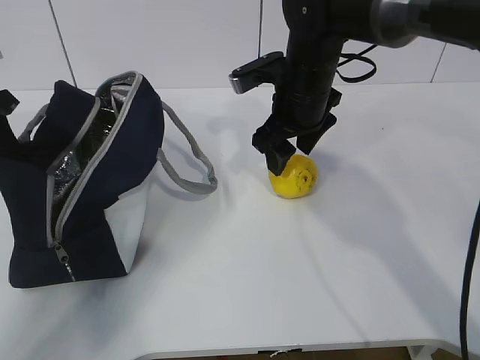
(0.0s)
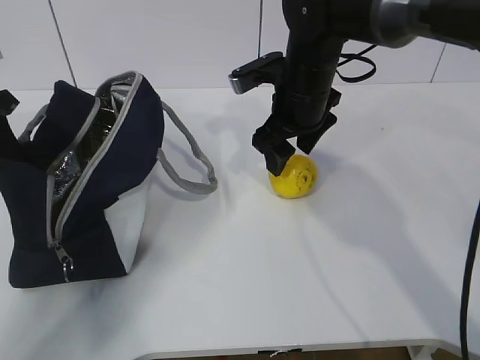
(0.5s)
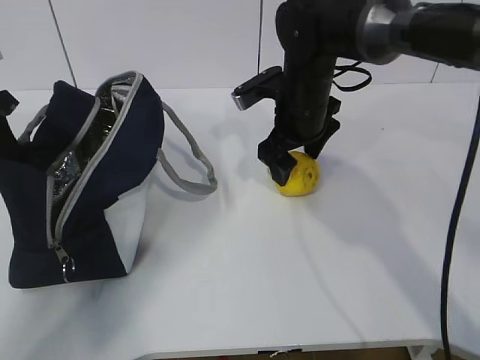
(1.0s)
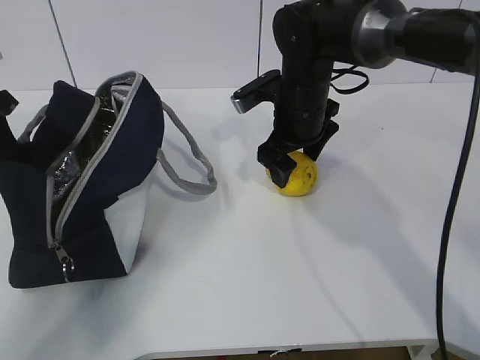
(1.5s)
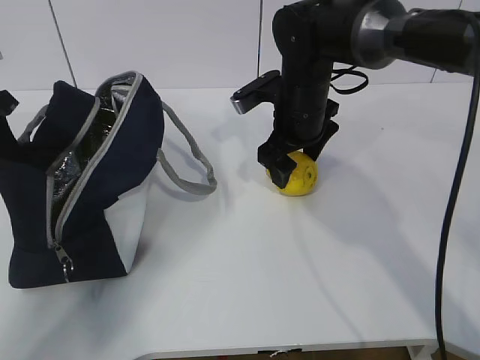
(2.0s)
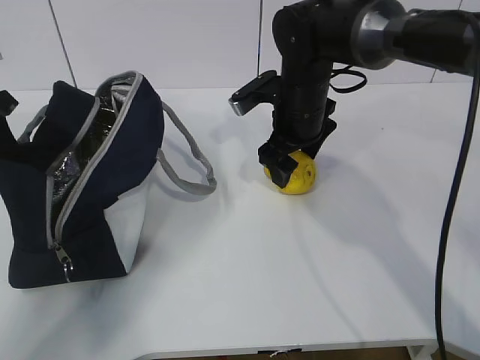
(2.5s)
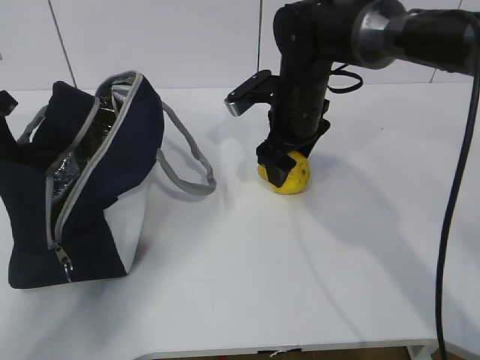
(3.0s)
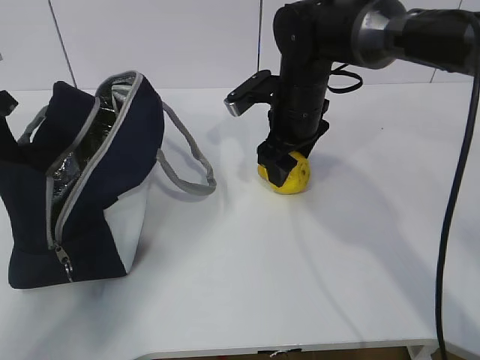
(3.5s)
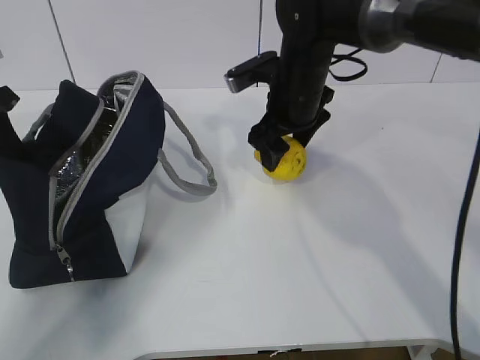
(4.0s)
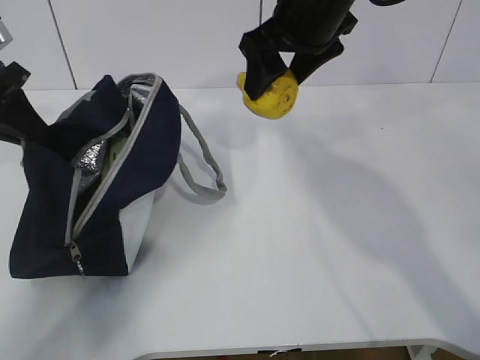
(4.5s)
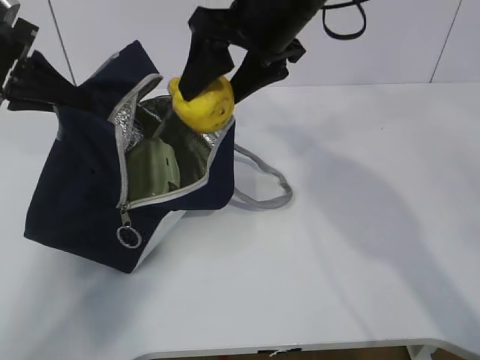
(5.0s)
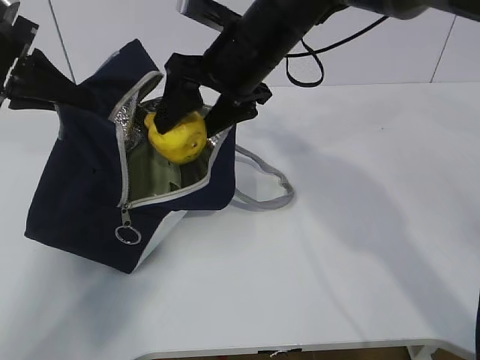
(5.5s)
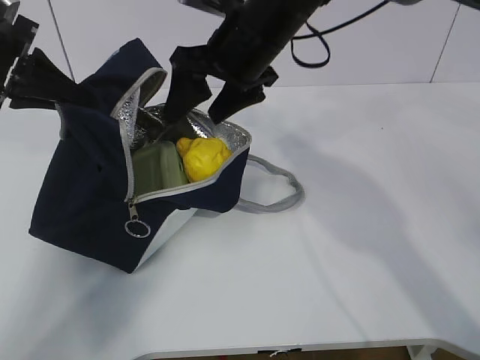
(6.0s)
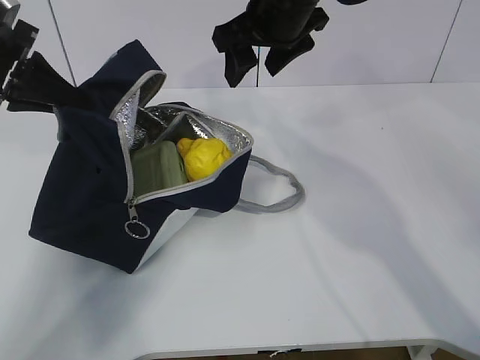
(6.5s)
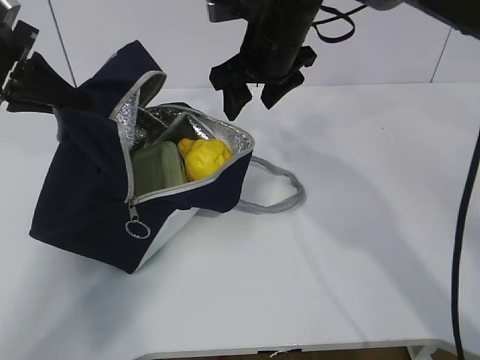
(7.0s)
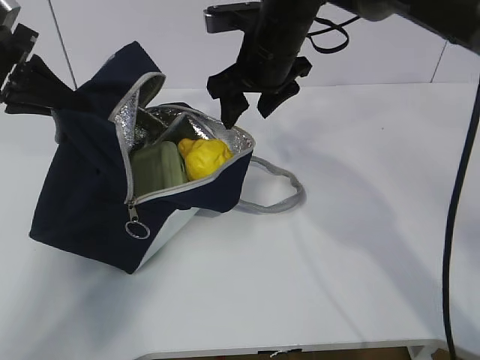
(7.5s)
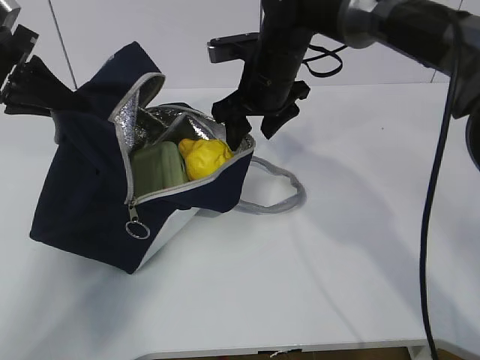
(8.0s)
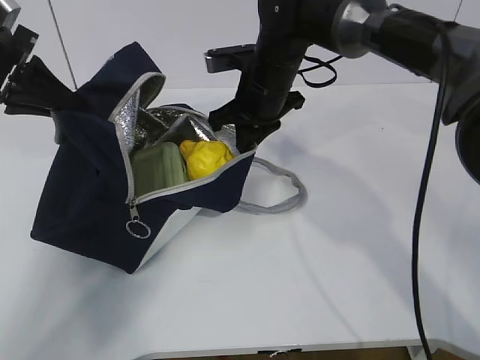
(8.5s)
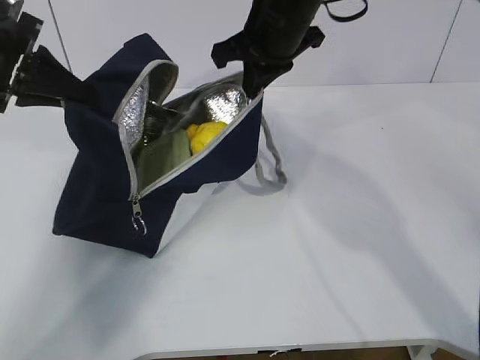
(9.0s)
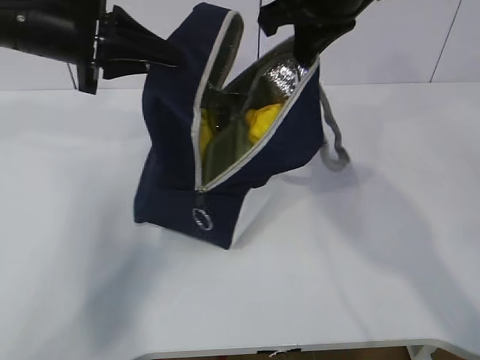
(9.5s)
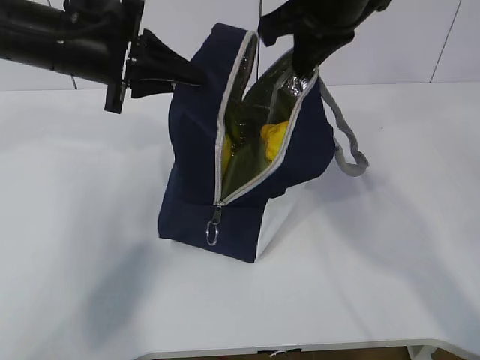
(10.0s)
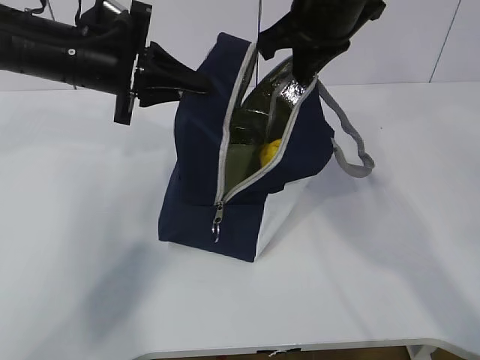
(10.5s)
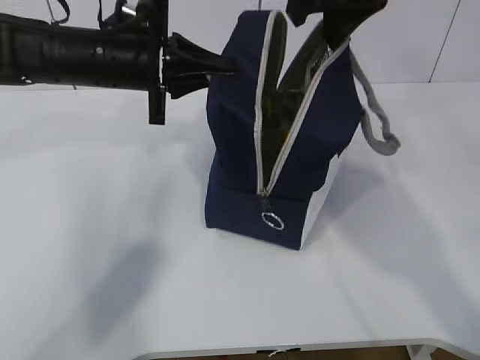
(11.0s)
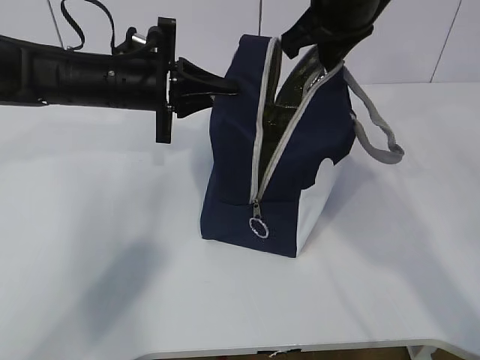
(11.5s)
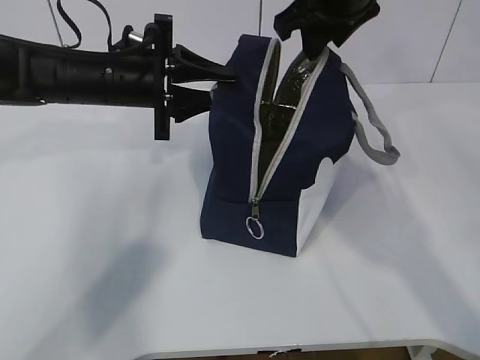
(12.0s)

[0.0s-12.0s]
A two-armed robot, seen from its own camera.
Step, 2.0s to 5.5s: Place the lemon into the package with the right gripper.
0.0s to 4.0s: There are only small adjustments of the grippers.
4.0s to 6.0s: The right gripper shifts approximately 10 cm upward and to the left.
6.0s to 8.0s: The right gripper heads downward, covering some 5 cm.
8.0s to 10.0s: The left gripper travels to the right by some 10 cm. Meanwhile the right gripper is displaced upward and backward by roughly 15 cm, and closes its fingers.
10.0s to 12.0s: The left gripper shifts approximately 5 cm downward, and opens up, while the right gripper opens.

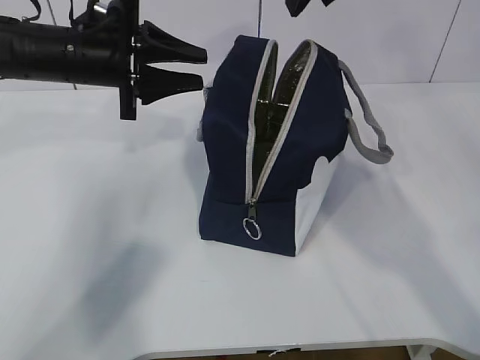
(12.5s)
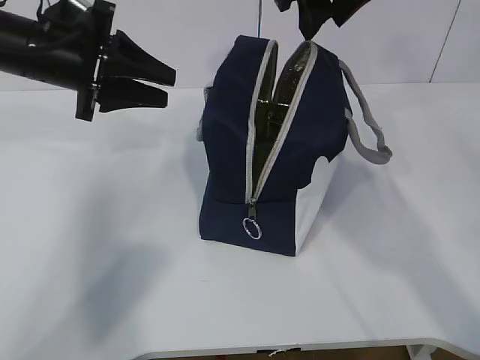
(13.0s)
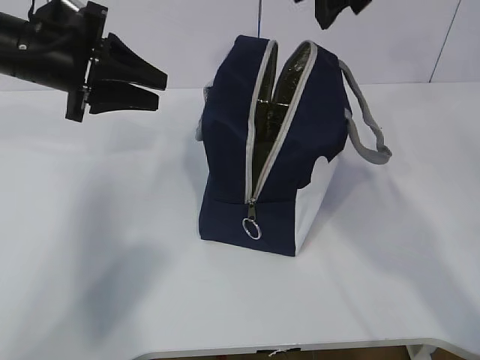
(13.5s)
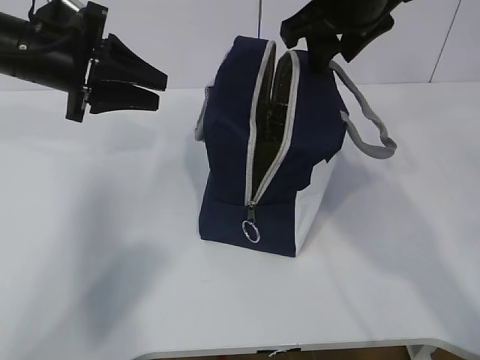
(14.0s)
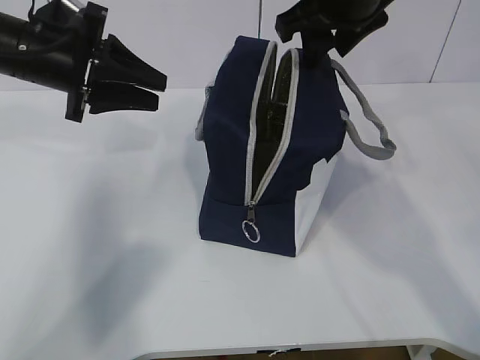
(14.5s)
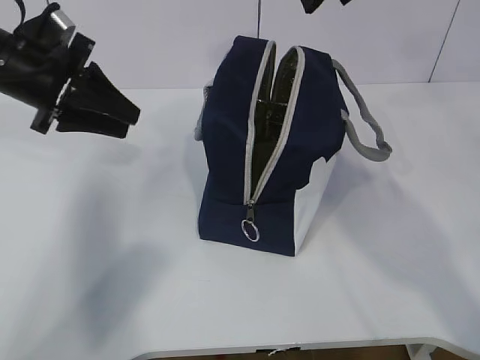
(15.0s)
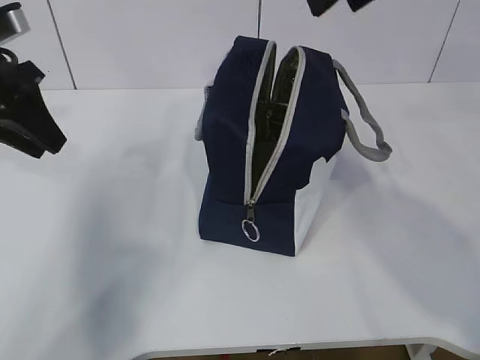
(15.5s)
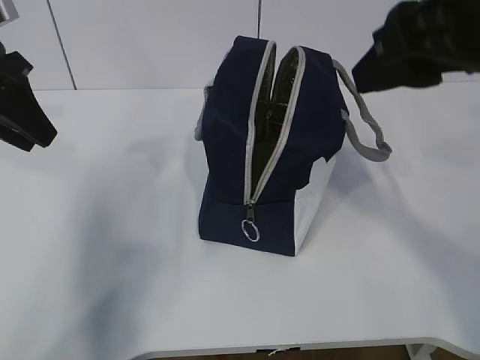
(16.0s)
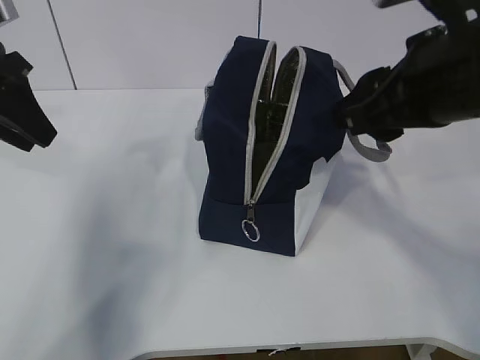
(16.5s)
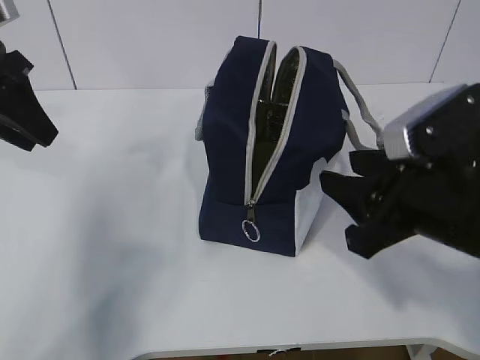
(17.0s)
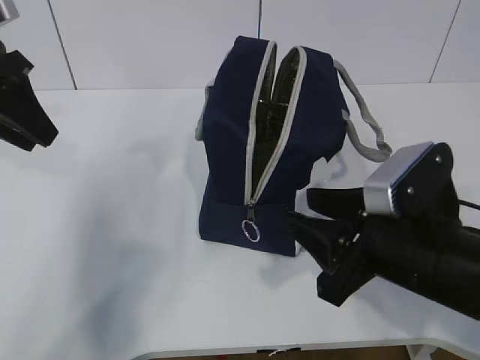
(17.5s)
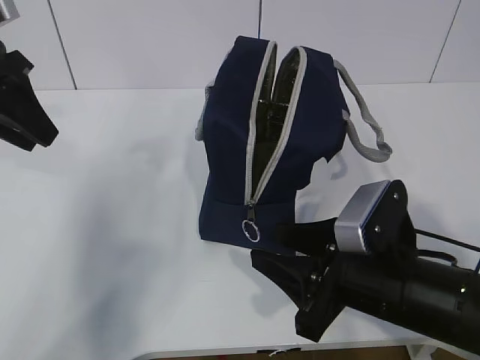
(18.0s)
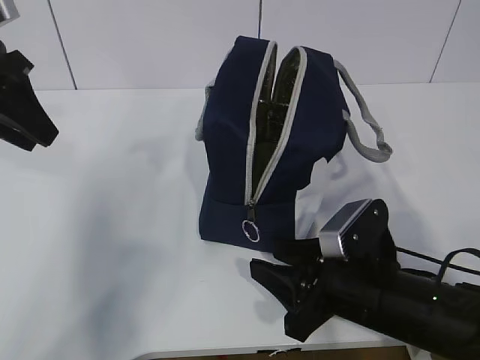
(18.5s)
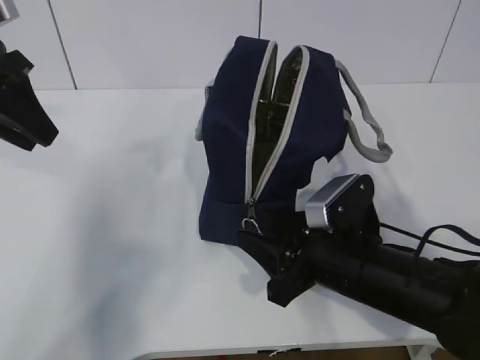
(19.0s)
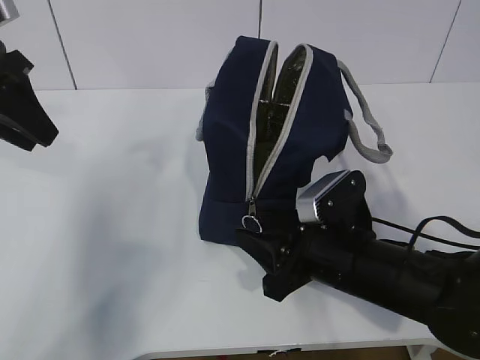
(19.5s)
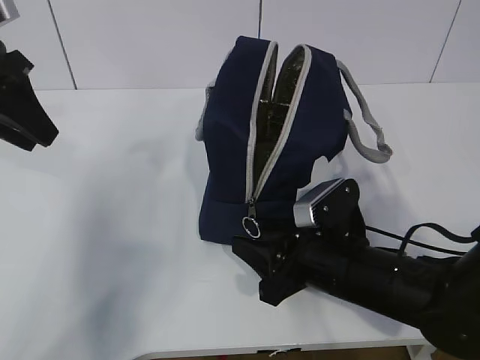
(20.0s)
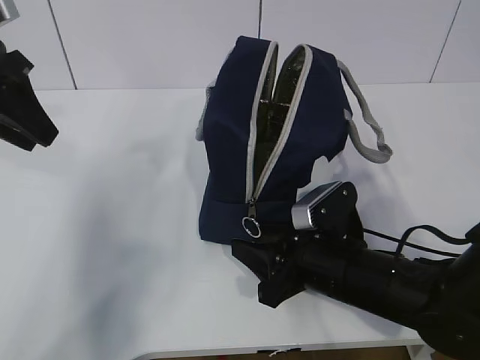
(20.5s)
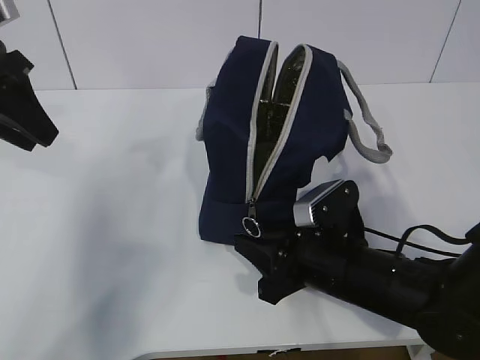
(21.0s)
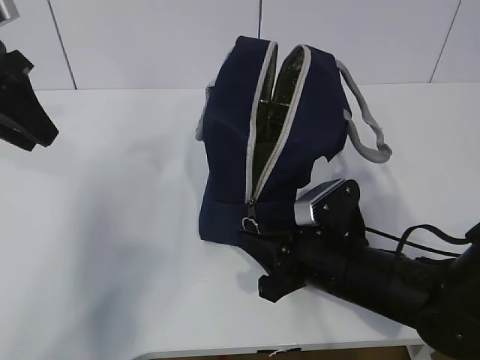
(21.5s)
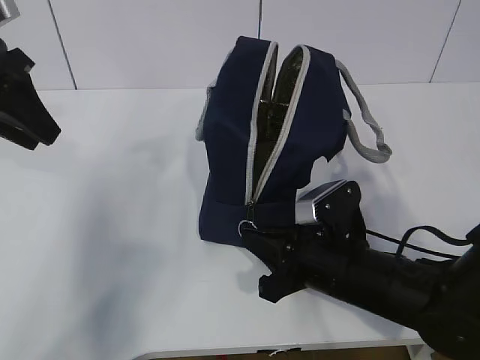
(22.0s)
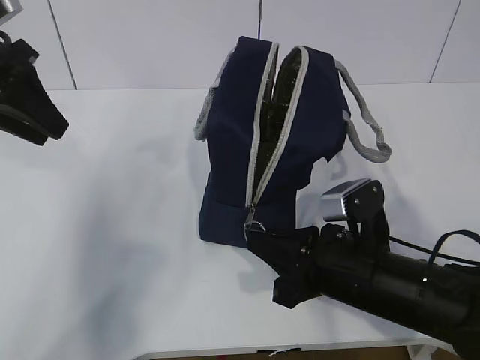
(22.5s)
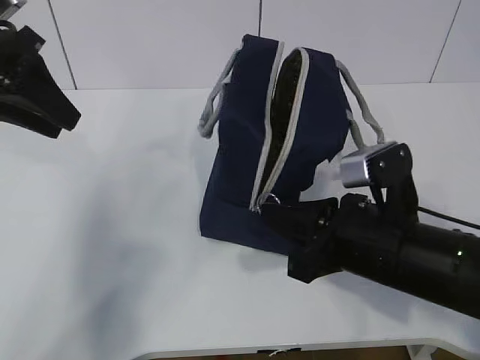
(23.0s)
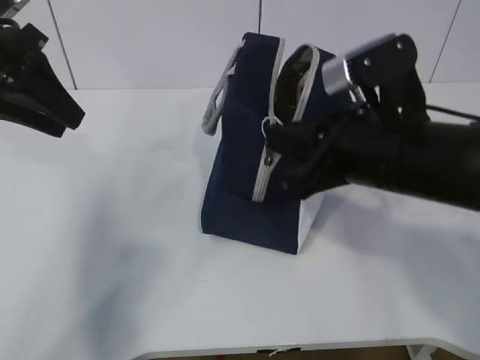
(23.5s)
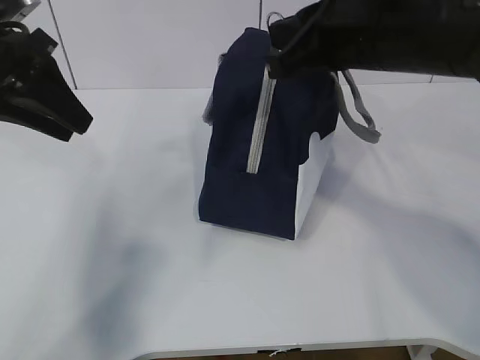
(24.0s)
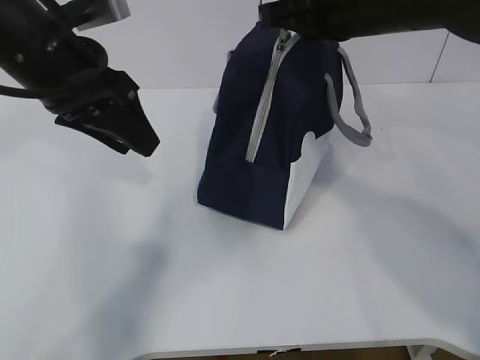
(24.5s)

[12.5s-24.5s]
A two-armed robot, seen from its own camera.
12.5s to 14.5s: There are only small adjustments of the grippers.
14.5s to 16.5s: The right gripper travels backward by about 15 cm. Meanwhile the left gripper is displaced to the left by some 5 cm.
16.5s to 18.5s: The right gripper travels downward by roughly 20 cm.
18.5s to 20.5s: There are only small adjustments of the grippers.
20.5s to 22.5s: The right gripper closes.
22.5s to 24.5s: The left gripper heads to the right, covering some 10 cm. Meanwhile the right gripper shifts about 25 cm upward and forward.

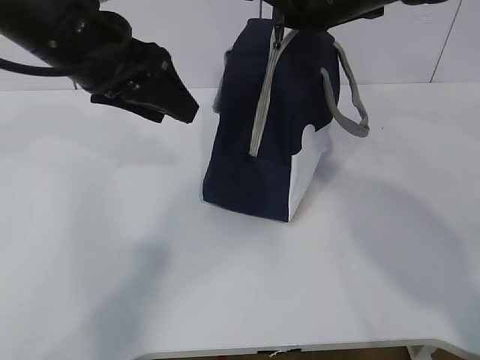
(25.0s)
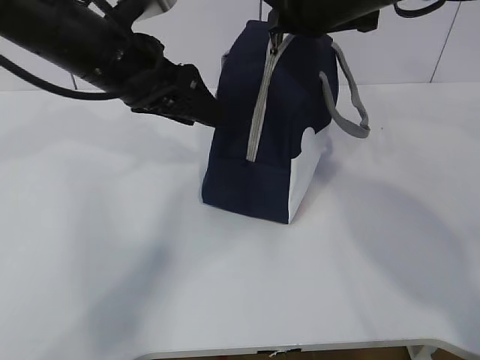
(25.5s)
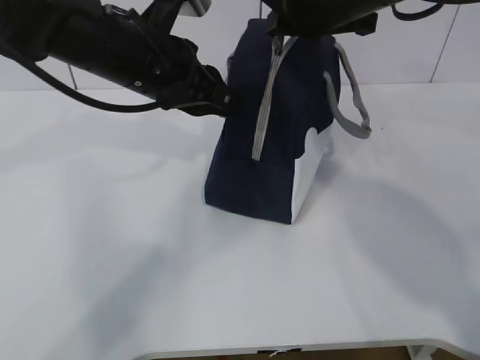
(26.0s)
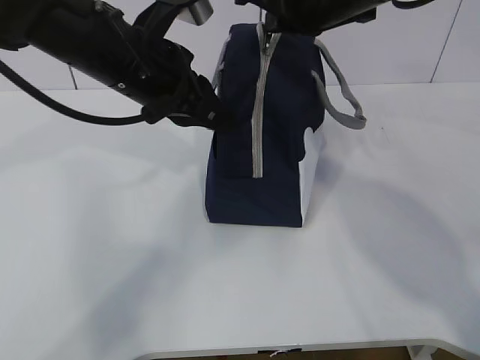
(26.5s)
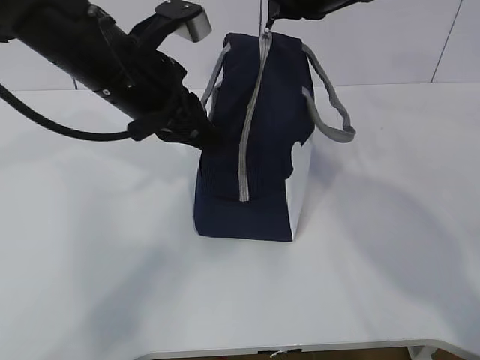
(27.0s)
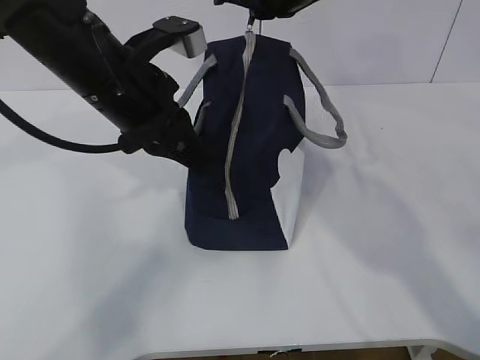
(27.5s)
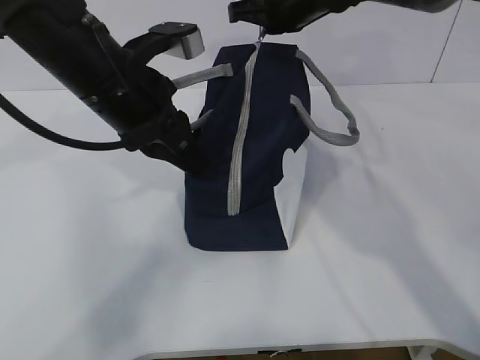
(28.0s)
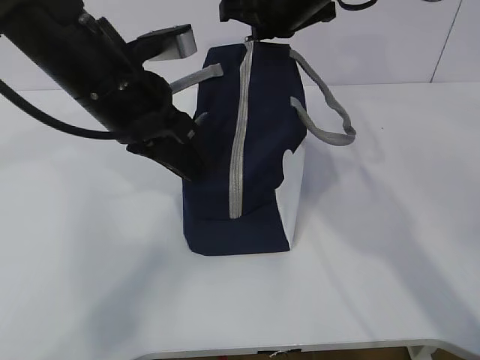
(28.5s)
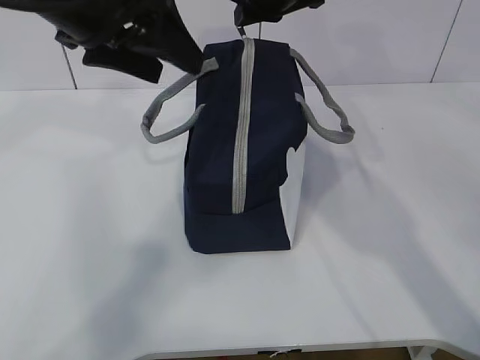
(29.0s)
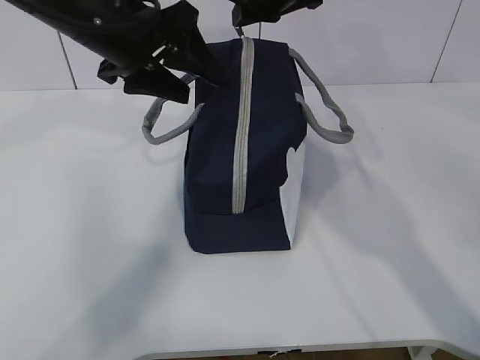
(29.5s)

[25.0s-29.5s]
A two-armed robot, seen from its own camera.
25.0s to 27.0s: The left gripper changes place by some 5 cm, and closes its fingers.
27.0s to 29.5s: The left gripper opens up, while the right gripper travels forward by some 10 cm.
